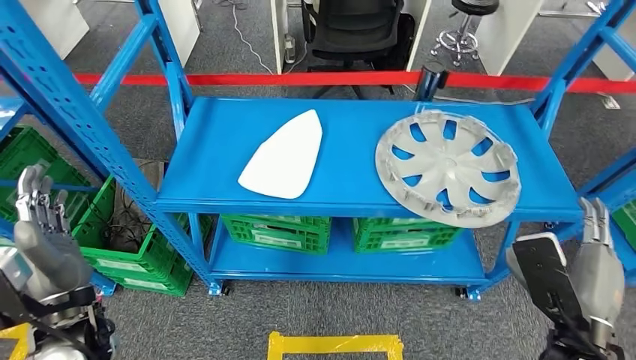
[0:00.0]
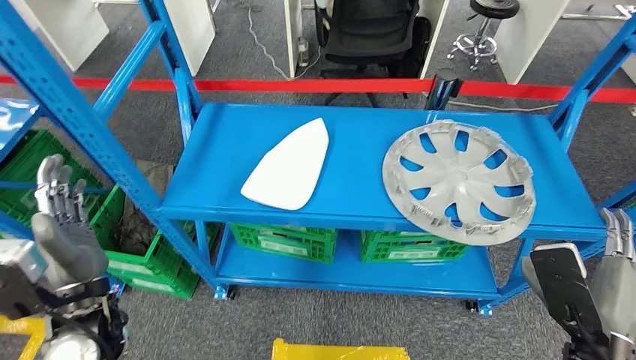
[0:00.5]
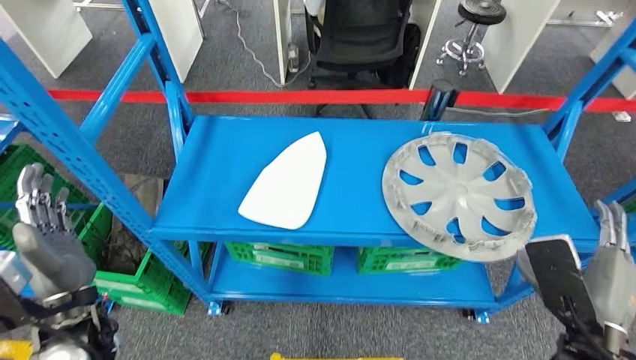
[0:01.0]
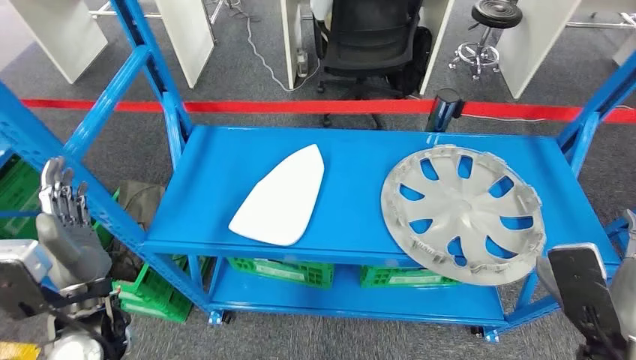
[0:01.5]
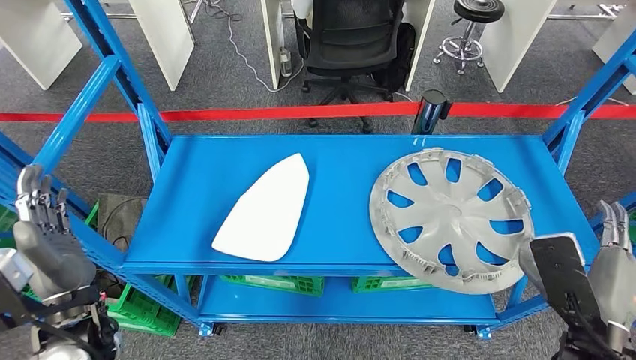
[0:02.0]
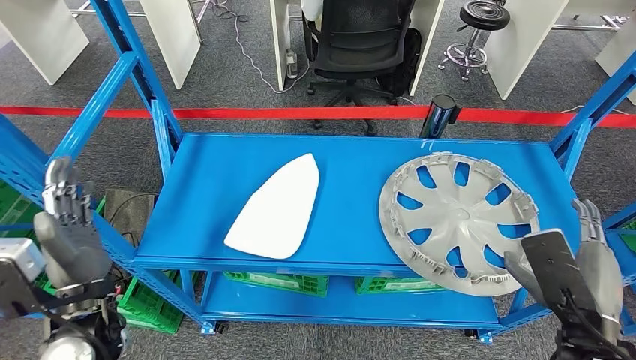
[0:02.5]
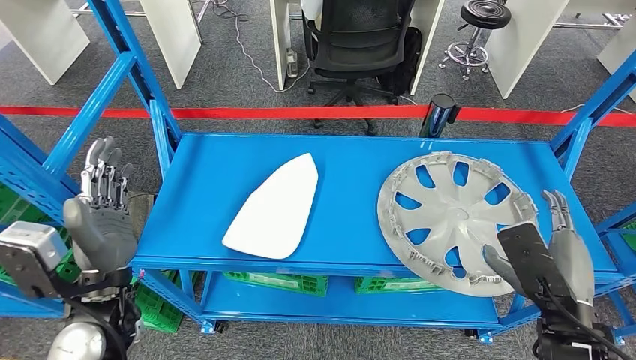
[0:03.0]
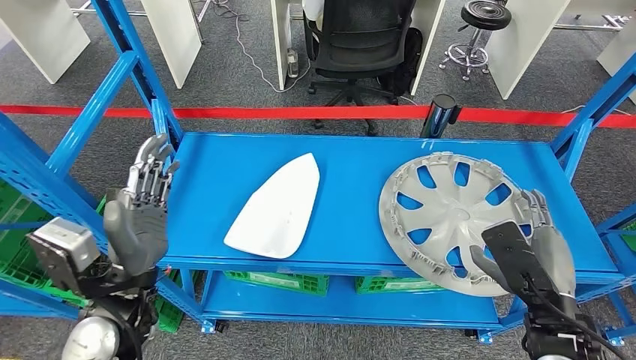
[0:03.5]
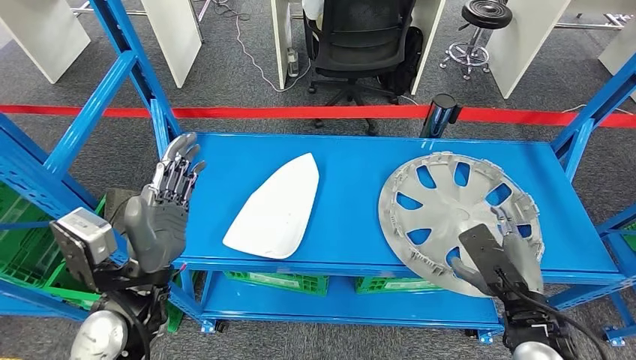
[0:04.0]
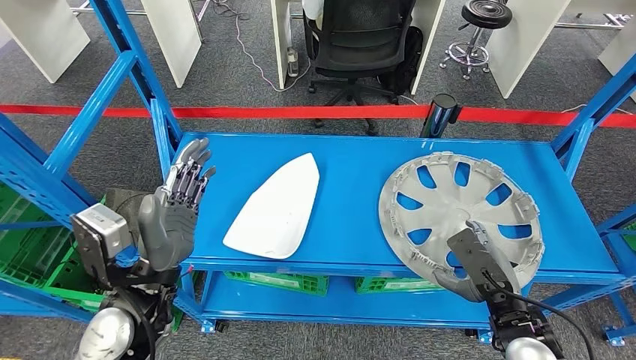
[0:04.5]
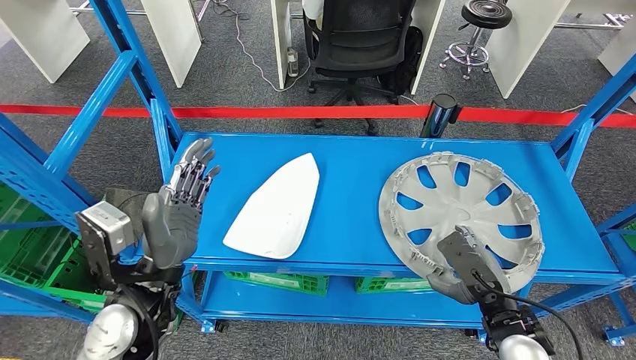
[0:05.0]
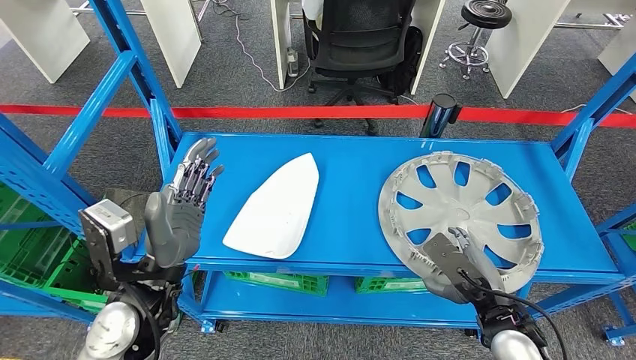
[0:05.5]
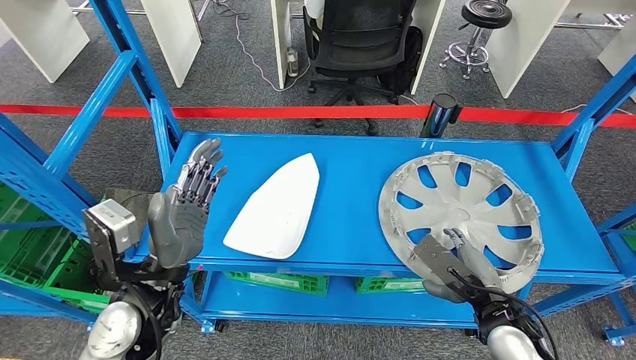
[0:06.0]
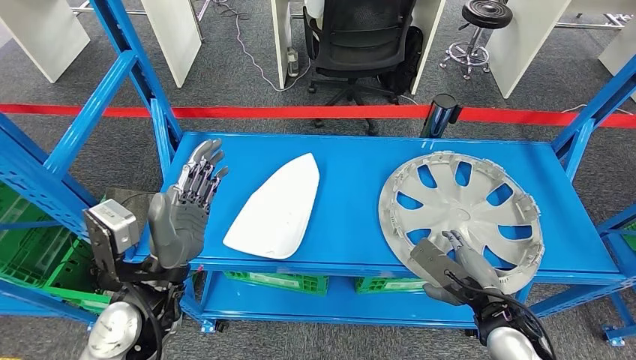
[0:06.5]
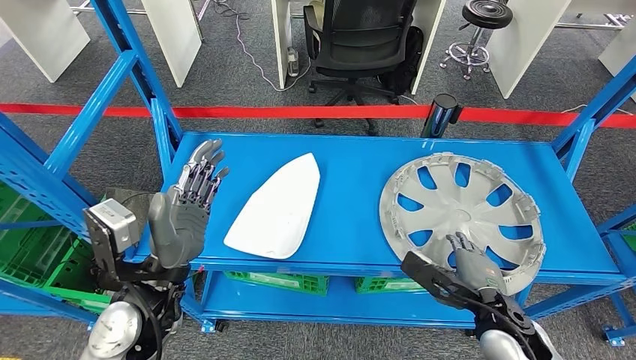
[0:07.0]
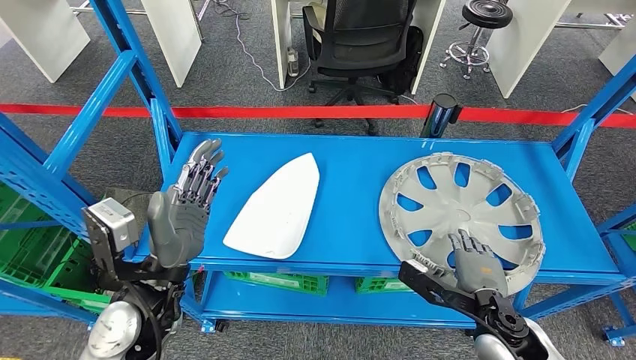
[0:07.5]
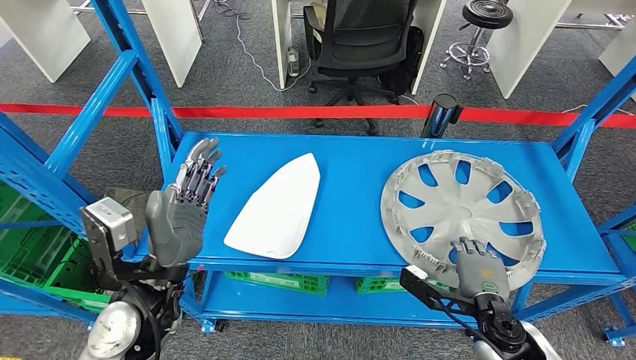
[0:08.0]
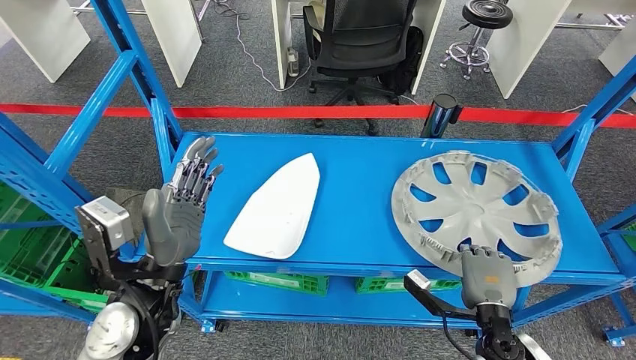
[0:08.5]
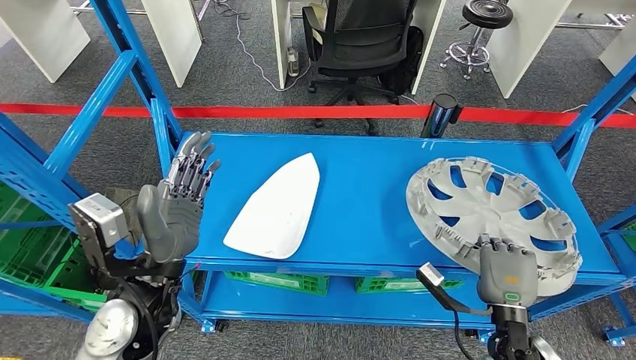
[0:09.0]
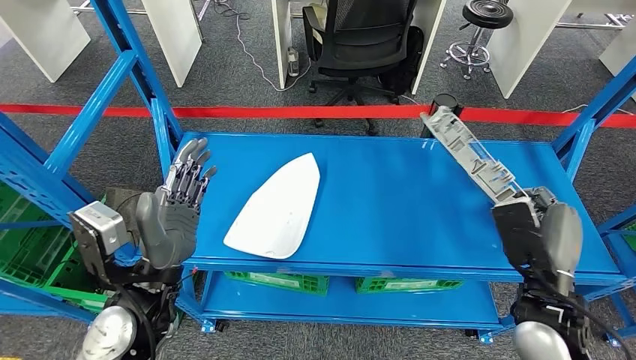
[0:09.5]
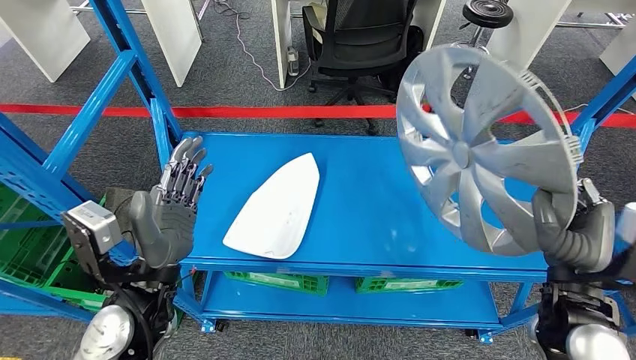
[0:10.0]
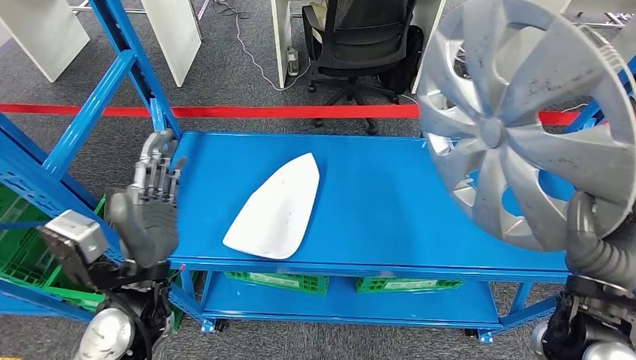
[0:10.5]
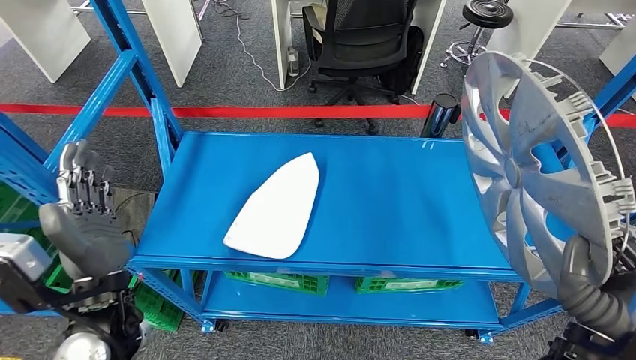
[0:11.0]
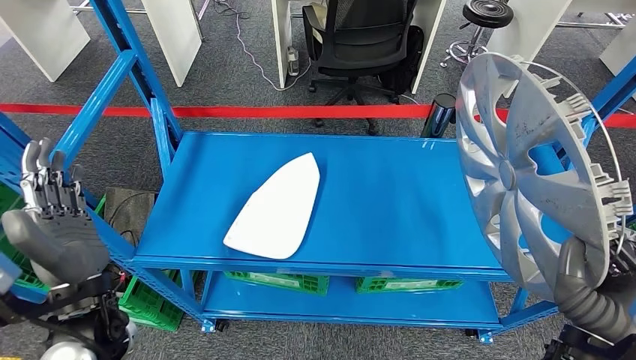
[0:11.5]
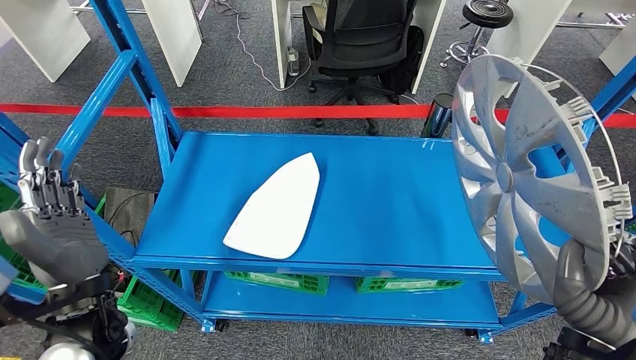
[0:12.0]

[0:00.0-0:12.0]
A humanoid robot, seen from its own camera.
Step, 0:00.0 to 0:09.5: Pick up the small component from the shelf.

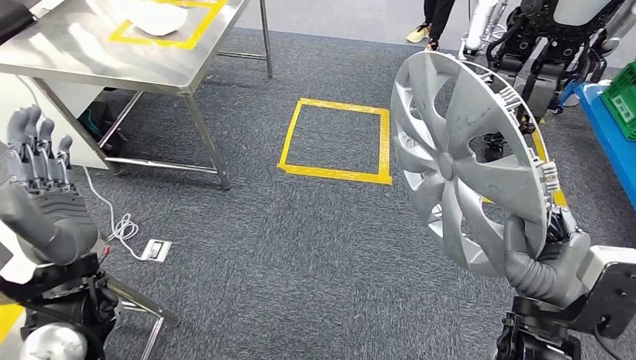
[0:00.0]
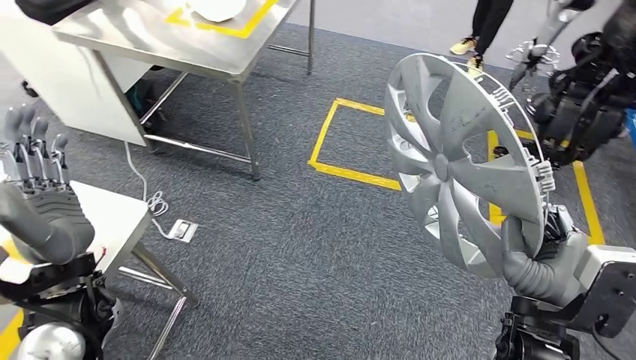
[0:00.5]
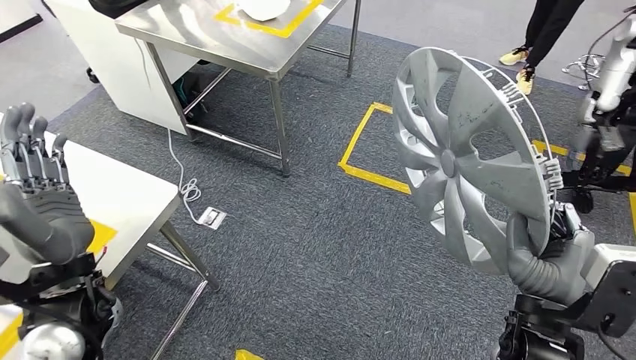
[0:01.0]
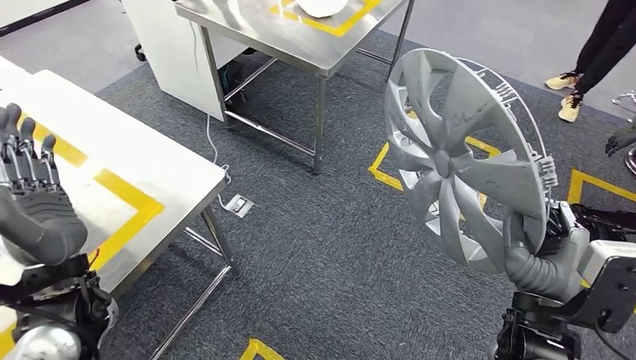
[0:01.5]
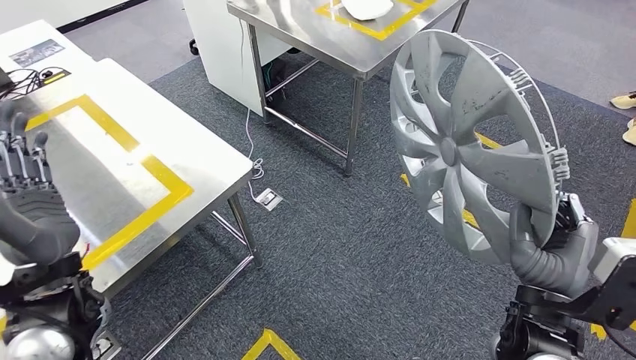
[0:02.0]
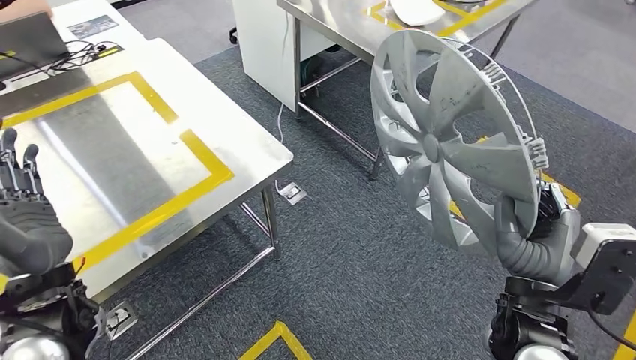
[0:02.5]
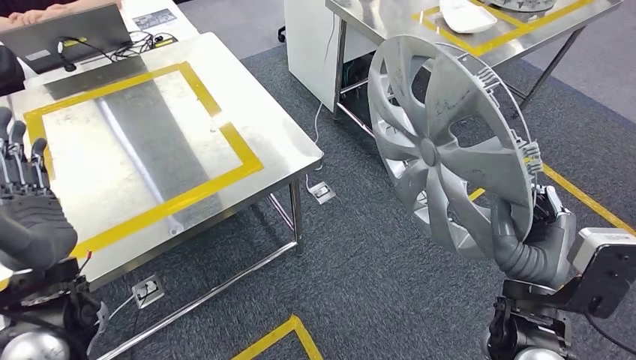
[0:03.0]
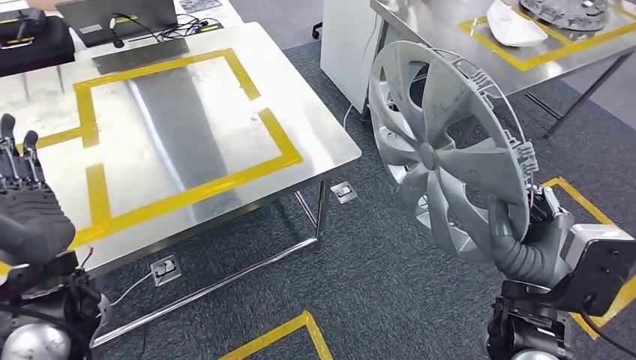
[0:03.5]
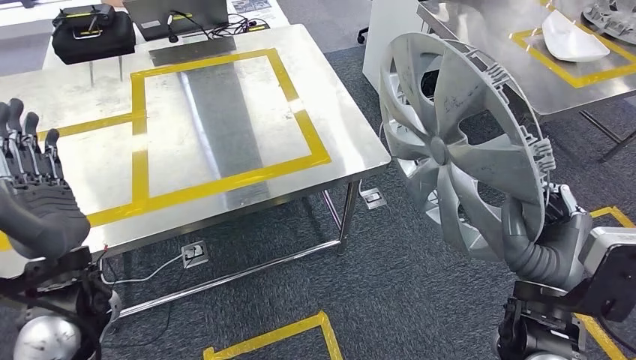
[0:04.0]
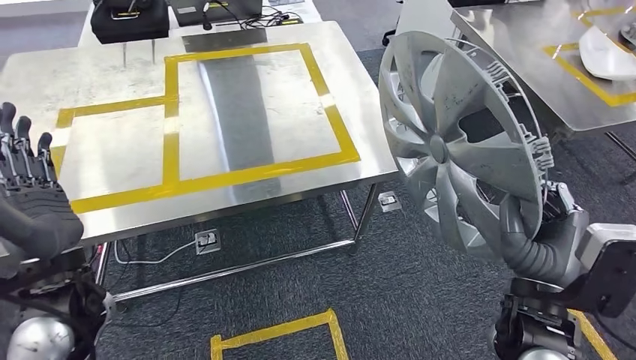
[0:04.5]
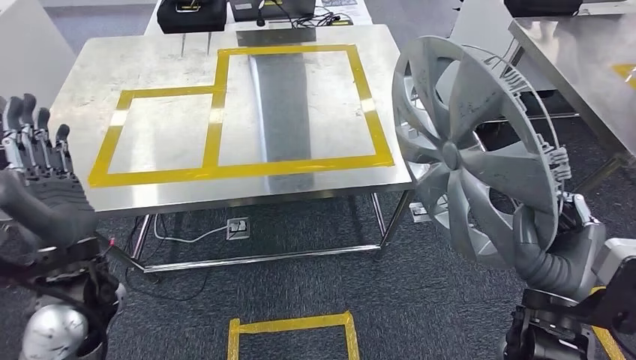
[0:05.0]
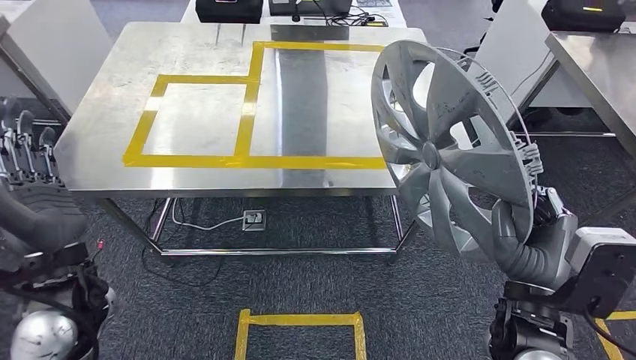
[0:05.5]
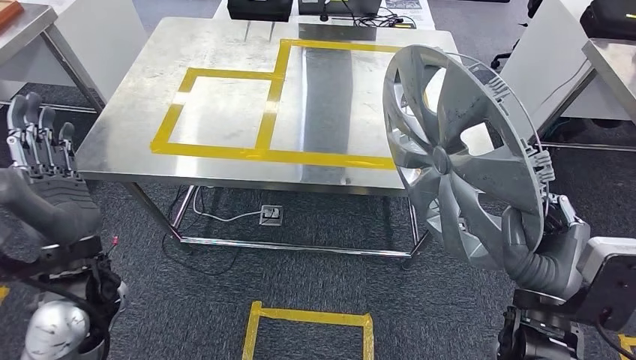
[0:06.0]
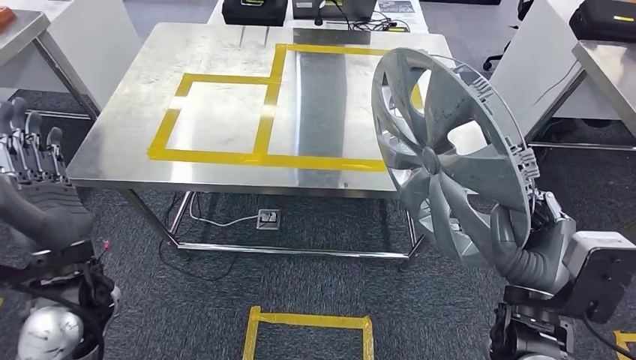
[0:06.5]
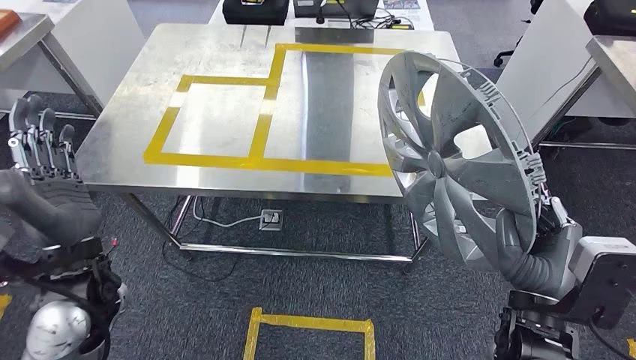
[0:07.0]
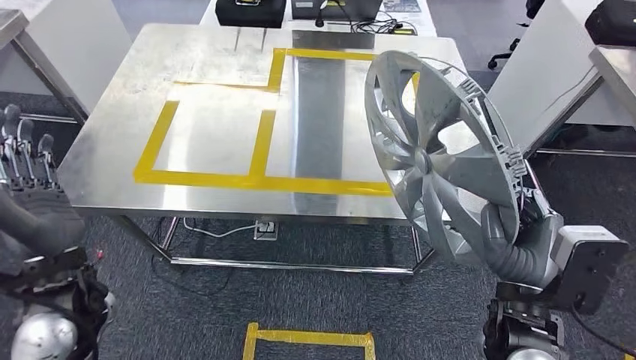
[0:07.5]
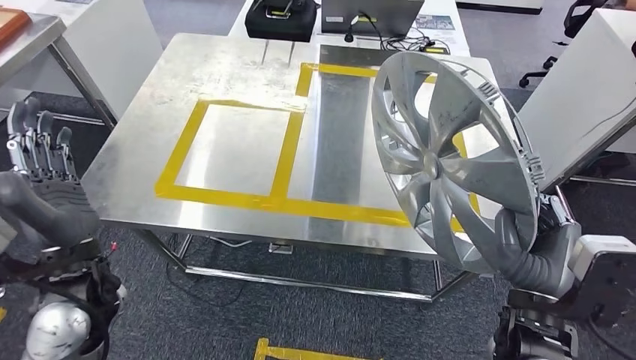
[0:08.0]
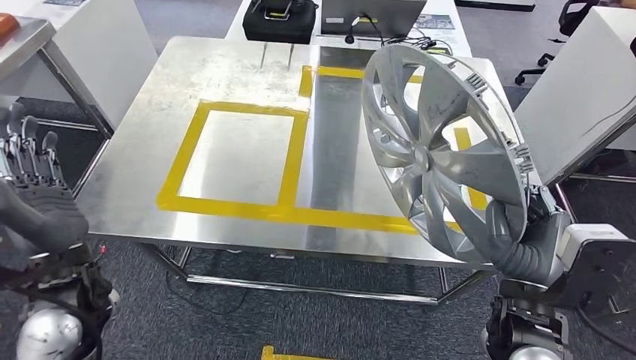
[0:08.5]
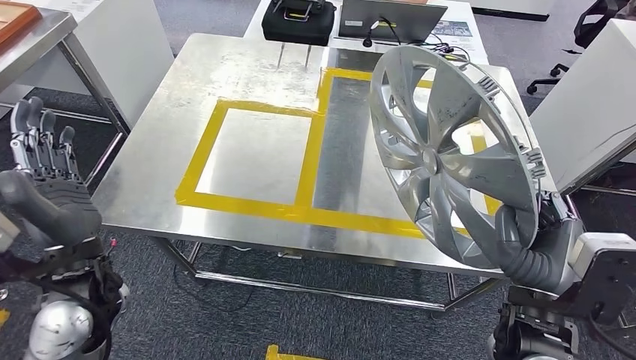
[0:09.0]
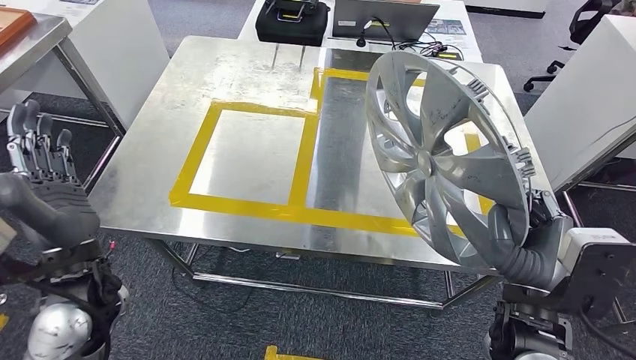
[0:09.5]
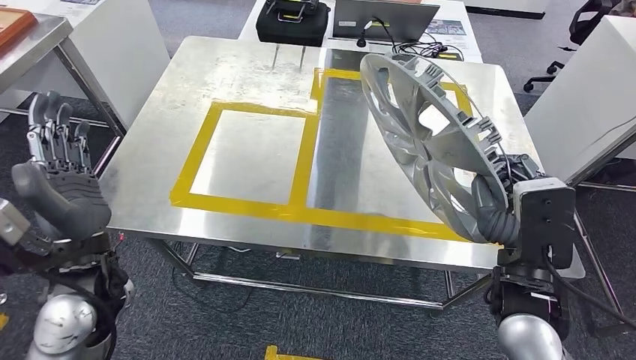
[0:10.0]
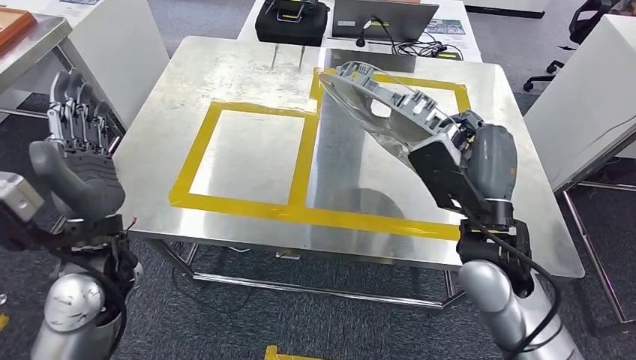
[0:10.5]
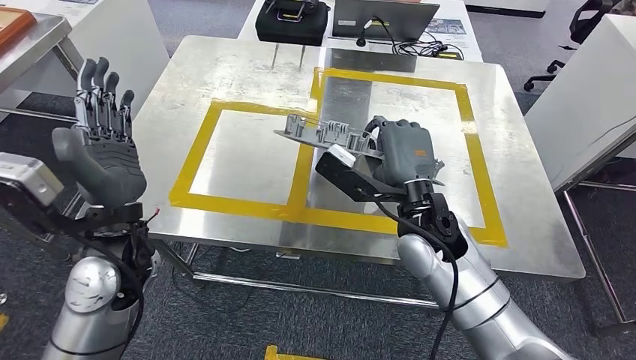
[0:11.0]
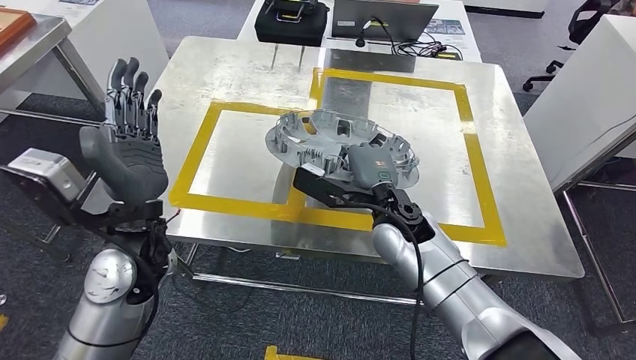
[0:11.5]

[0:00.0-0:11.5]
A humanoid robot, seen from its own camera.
Step, 0:00.0 to 0:09.5: Bring the small component to the front of the workbench.
